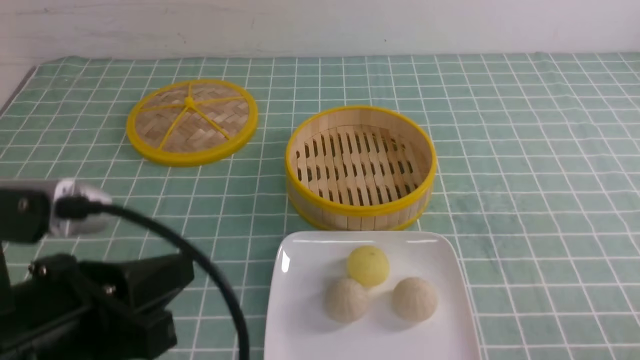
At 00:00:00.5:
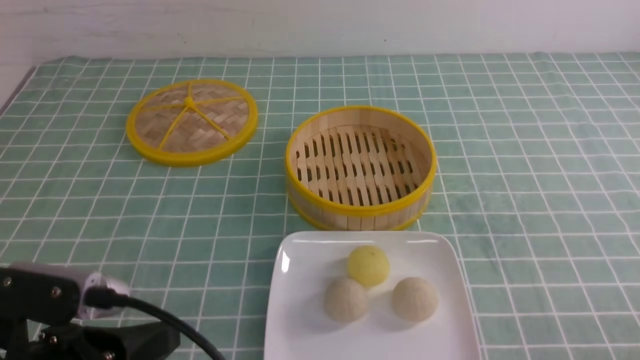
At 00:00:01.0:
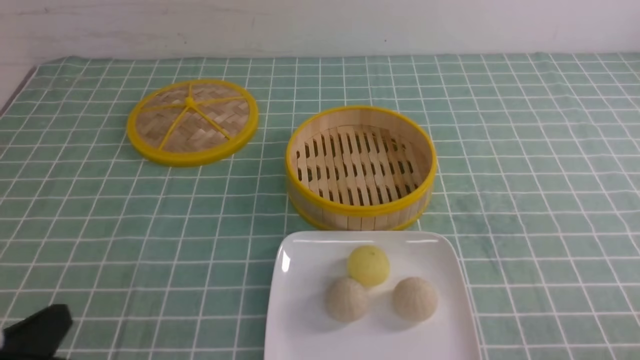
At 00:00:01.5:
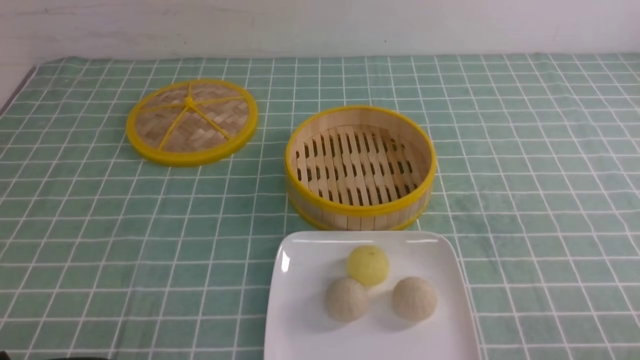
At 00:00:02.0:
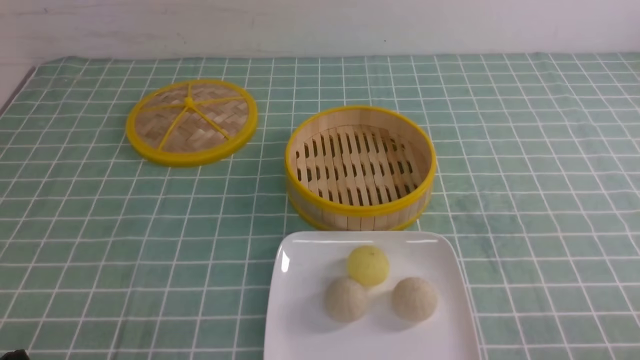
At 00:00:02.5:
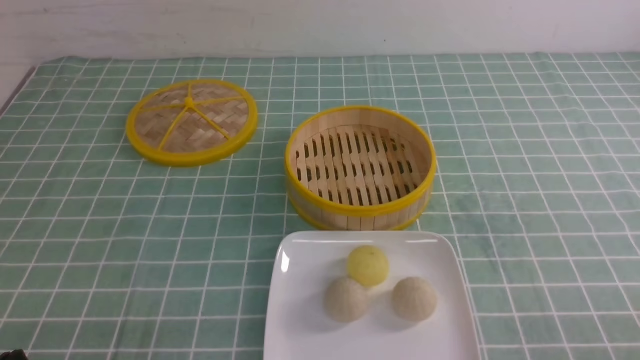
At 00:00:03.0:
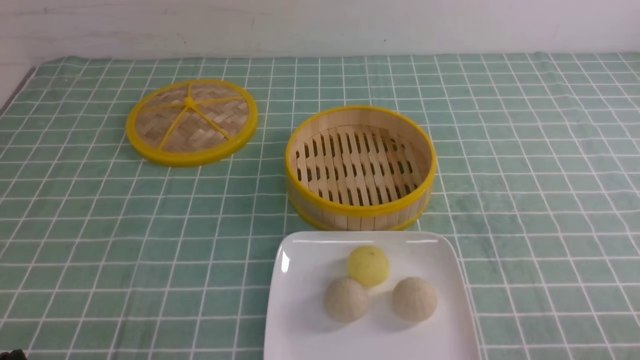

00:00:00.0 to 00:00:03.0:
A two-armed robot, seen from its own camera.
00:00:00.0 to 00:00:01.5: The left gripper moves downward, to the left and backward, some 15 cm.
00:00:01.5 to 00:00:03.0: The two grippers keep their place.
